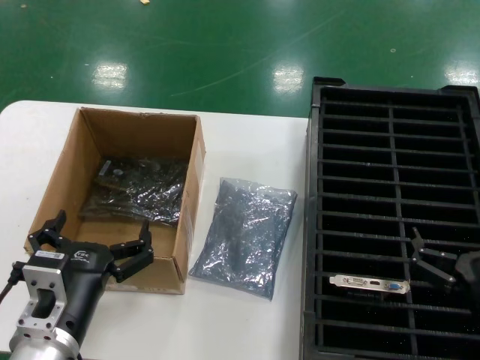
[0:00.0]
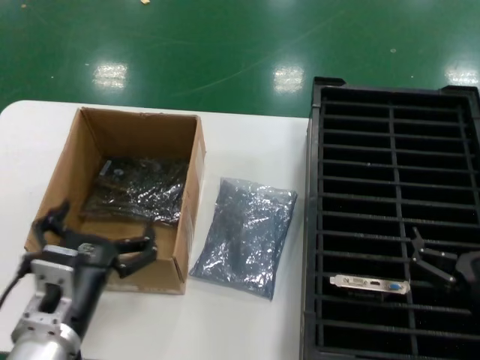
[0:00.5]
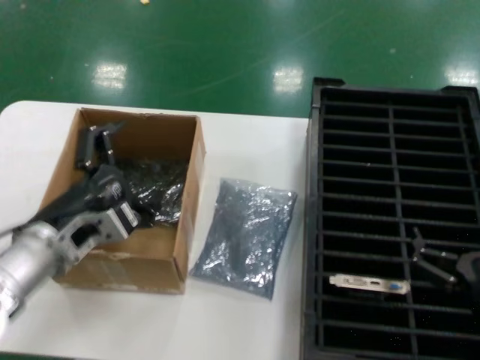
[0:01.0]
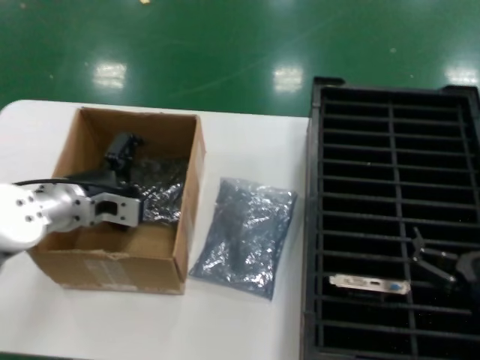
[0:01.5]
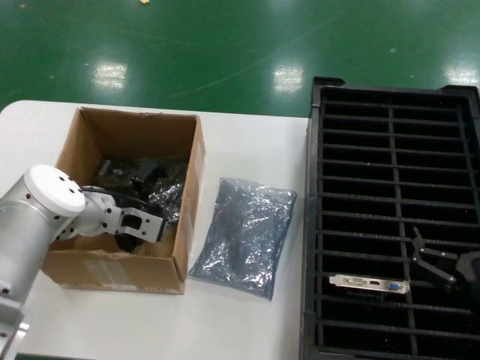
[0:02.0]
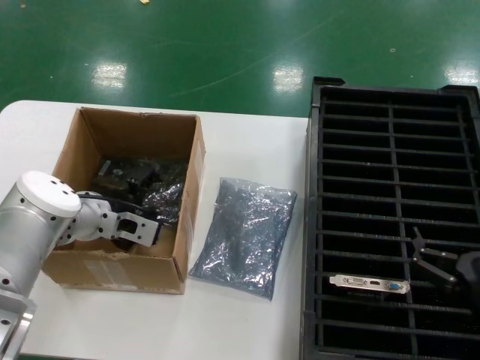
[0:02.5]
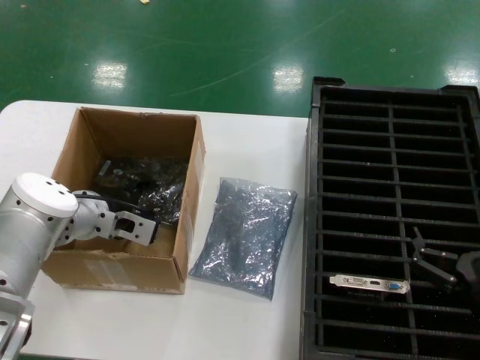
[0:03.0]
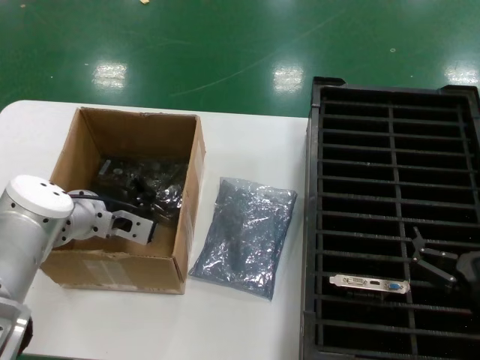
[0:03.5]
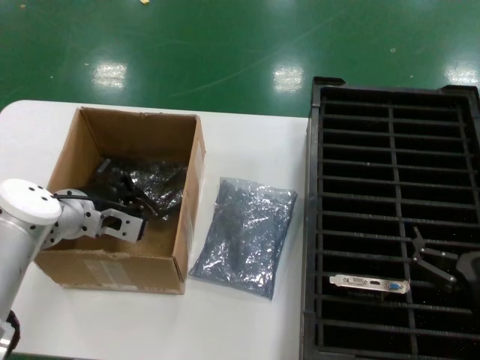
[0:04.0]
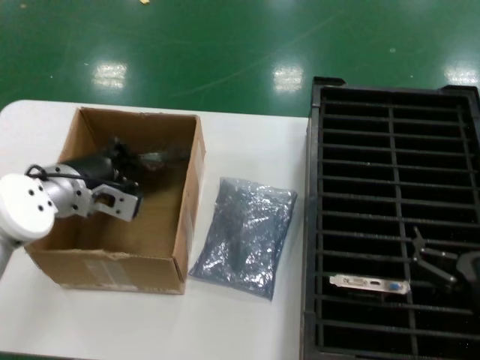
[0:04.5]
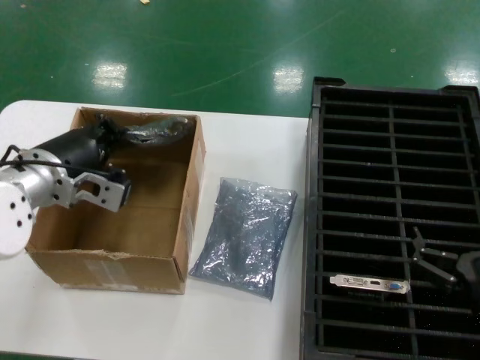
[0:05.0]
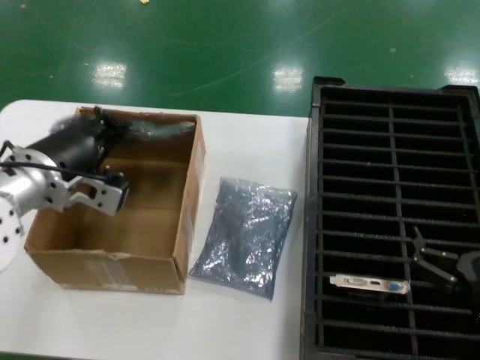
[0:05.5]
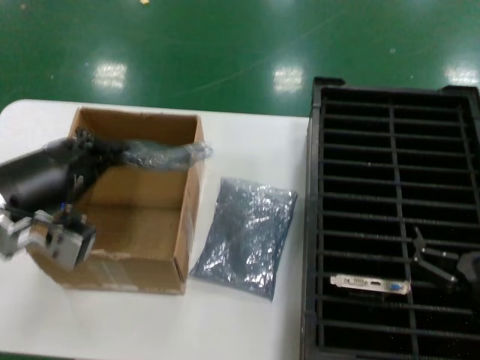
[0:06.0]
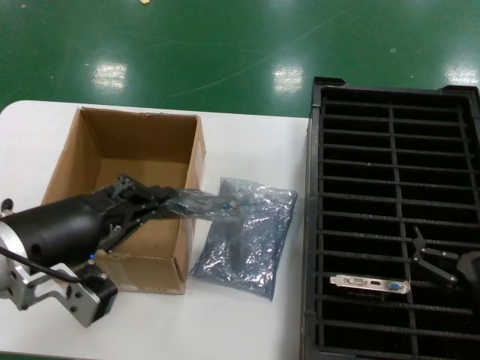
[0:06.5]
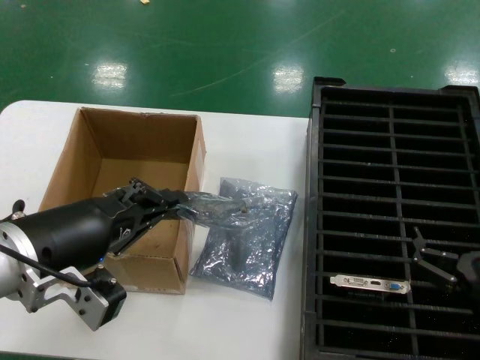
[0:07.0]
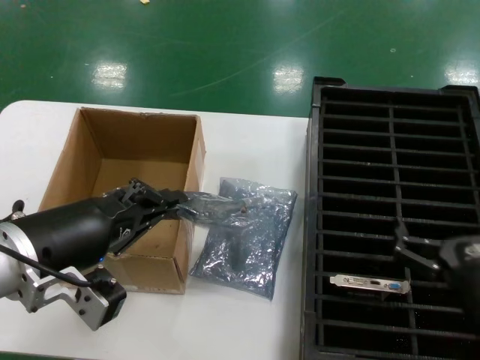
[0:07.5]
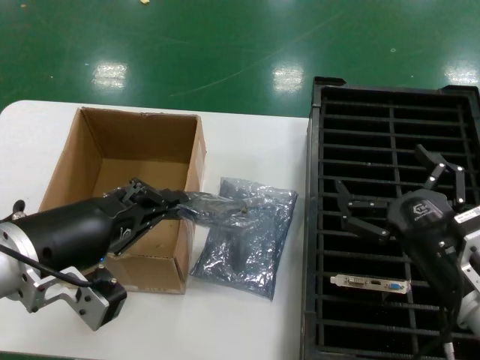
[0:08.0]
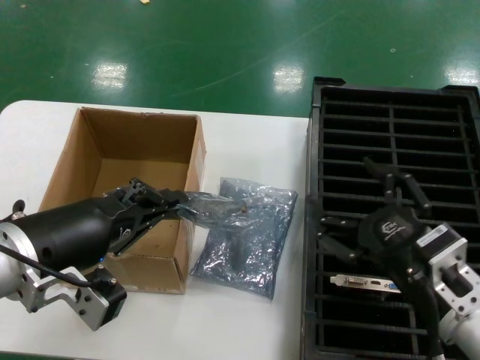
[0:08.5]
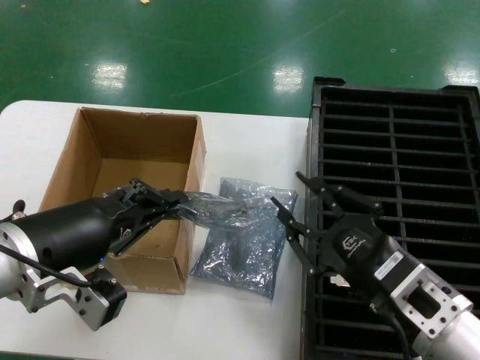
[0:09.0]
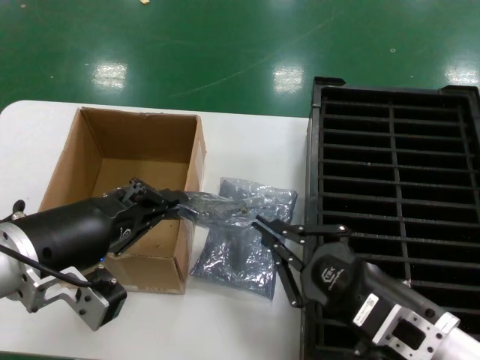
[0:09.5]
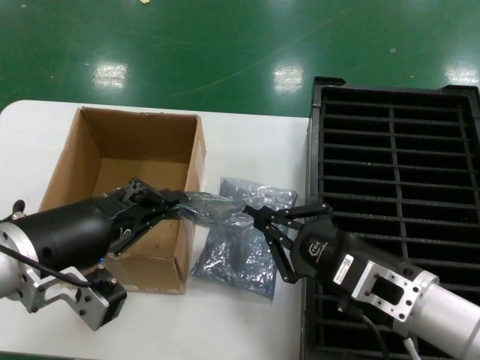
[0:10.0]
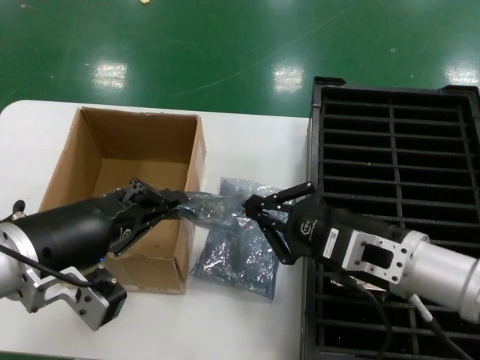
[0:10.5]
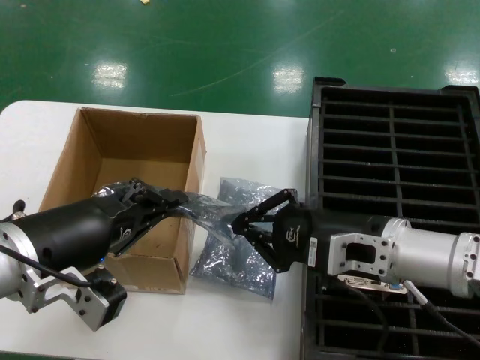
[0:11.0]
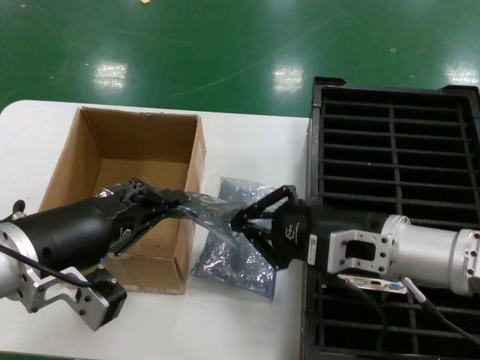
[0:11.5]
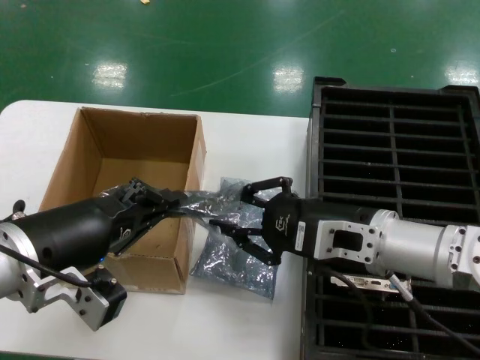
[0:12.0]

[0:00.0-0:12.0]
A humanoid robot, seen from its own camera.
Task of the whole recording: take out graphics card from box remove packaging put into black container.
Step, 0:00.0 to 0:03.5: Grasp the bag.
Step, 0:04.0 to 0:06.5: Lift the bag.
0:00.0 to 0:02.0: The left hand travels forward by about 25 cm.
0:02.0 to 0:04.0: There are only small adjustments of the hands.
0:04.0 to 0:06.0: The left hand travels backward and upward by roughly 20 cm.
0:06.0 to 0:08.0: The right hand moves upward, roughly 5 cm.
0:10.0 to 0:12.0: The right hand goes about 10 cm forward and upward.

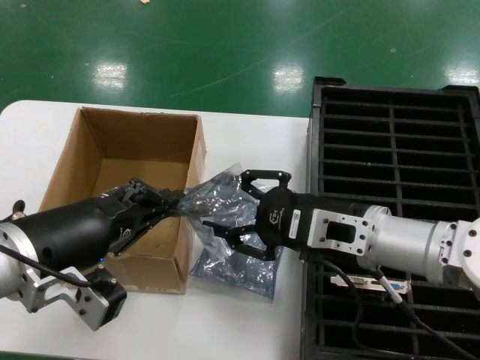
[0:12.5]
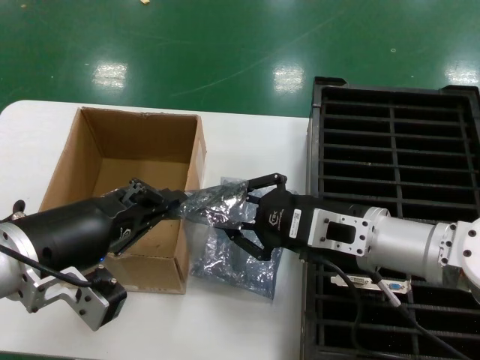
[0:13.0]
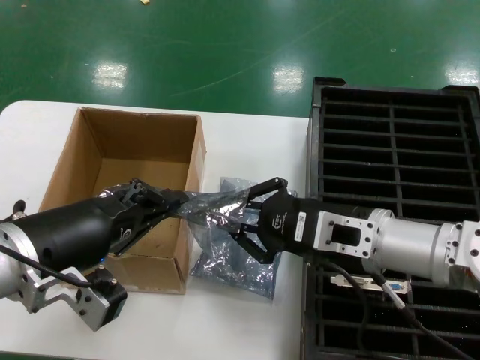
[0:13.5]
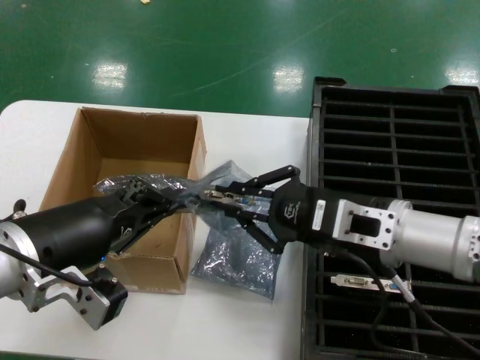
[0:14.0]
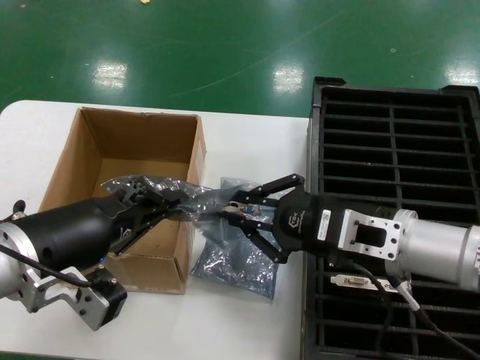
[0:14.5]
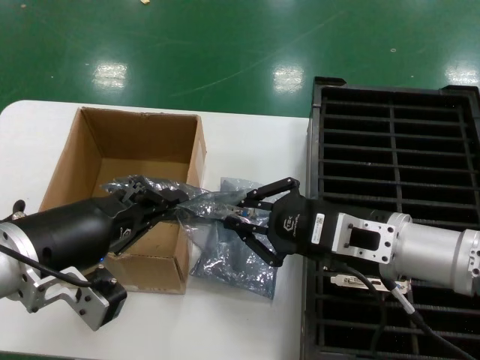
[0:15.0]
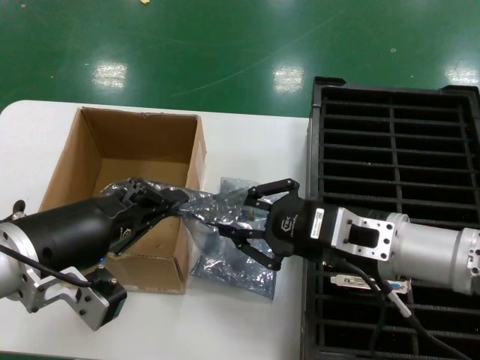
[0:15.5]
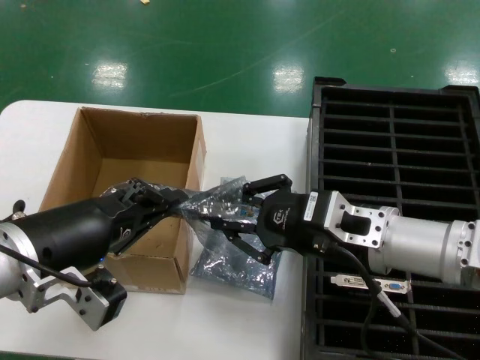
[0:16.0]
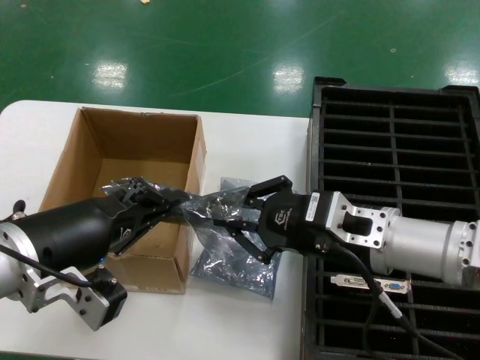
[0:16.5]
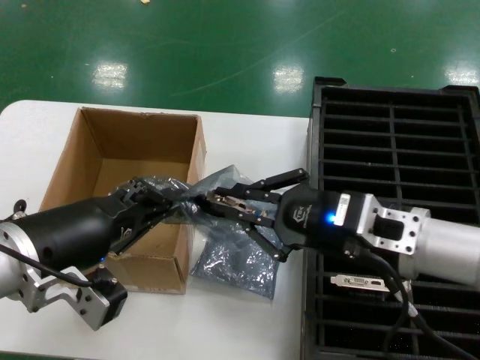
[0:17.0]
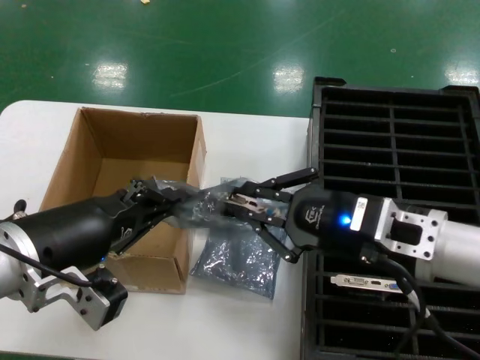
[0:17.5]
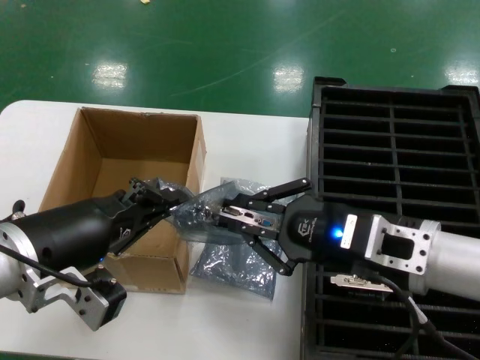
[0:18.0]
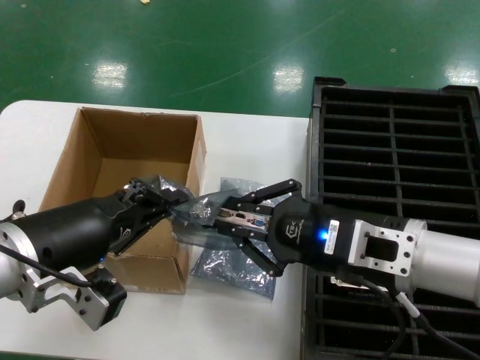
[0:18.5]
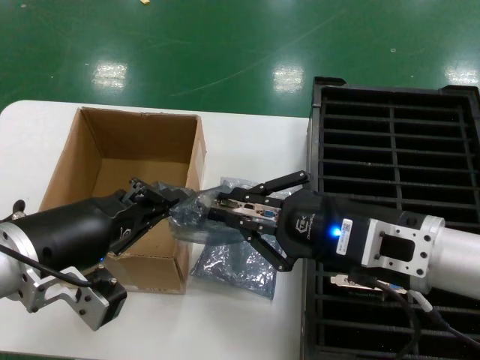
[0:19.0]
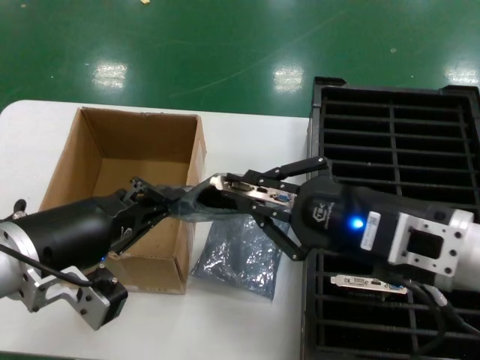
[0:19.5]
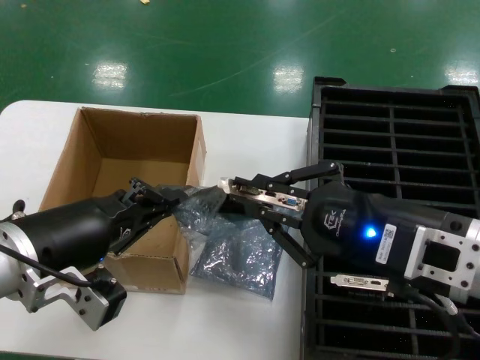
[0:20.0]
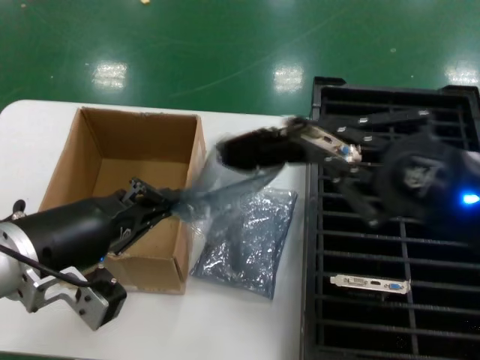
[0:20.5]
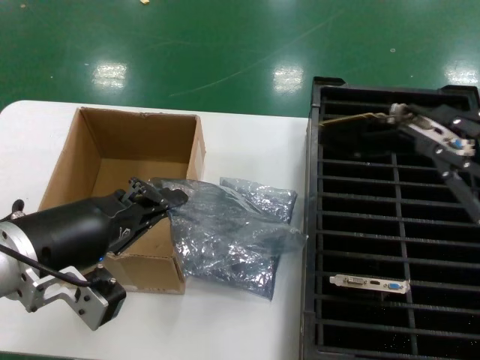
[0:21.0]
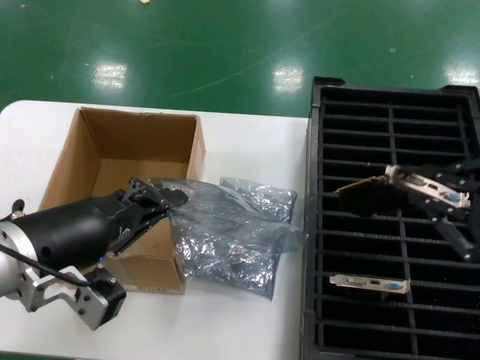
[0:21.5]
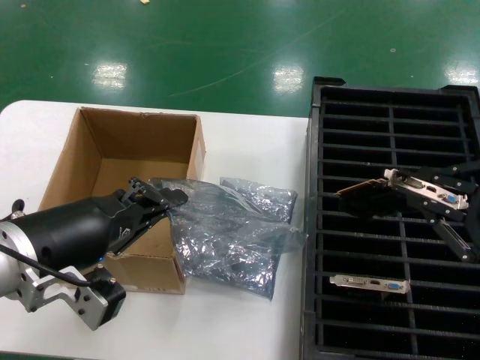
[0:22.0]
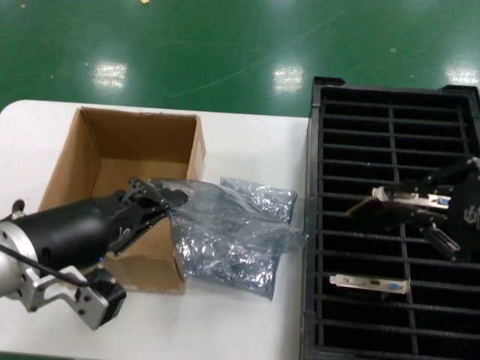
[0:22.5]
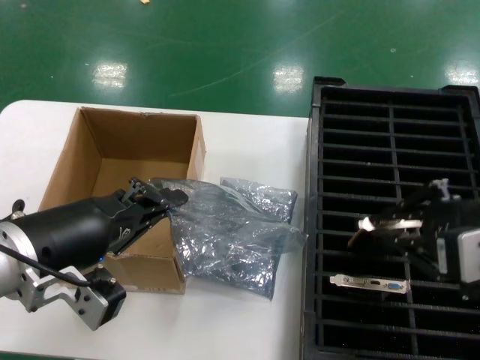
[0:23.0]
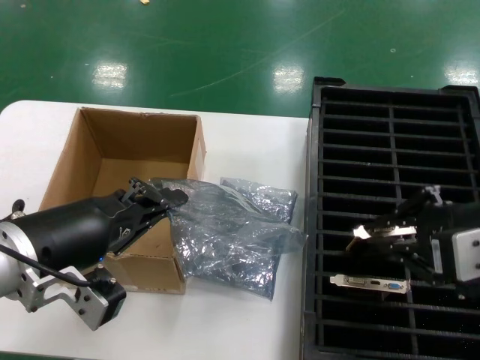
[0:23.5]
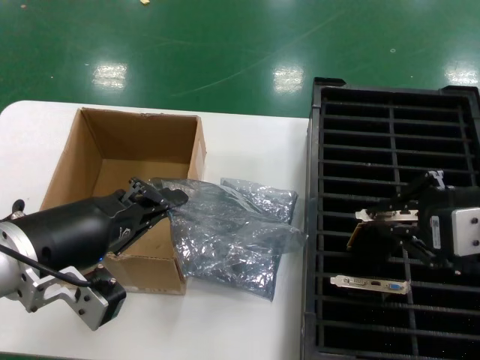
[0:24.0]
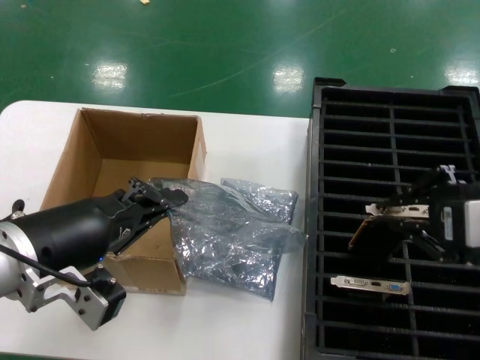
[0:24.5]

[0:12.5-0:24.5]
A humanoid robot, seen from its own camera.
Task of the whole recording: take out graphics card from box remove packaging put into black container.
Step, 0:12.5 to 0:20.5: Take out the hard disk of the bag.
0:12.5 to 0:16.5: The hands make only small movements.
0:16.5 to 0:18.5: The hands make only small movements.
0:18.5 to 0:20.5: The right hand travels backward, to the right and upward by roughly 15 cm.
0:22.5 to 0:24.5: The right hand changes place by about 5 cm.

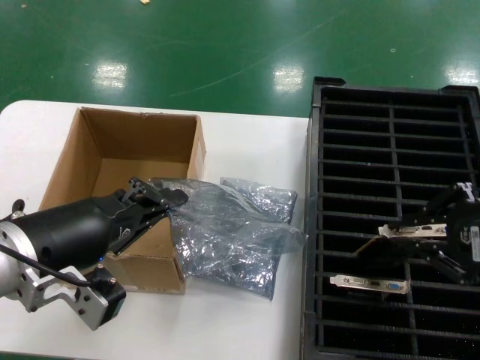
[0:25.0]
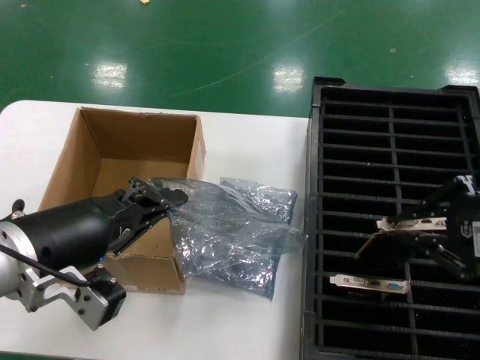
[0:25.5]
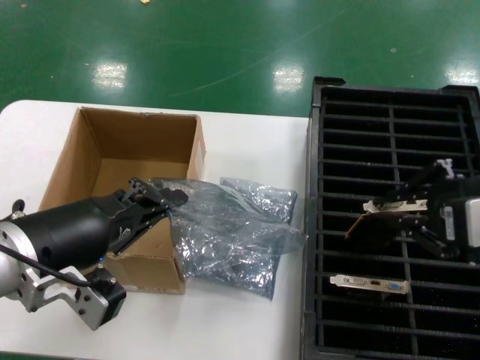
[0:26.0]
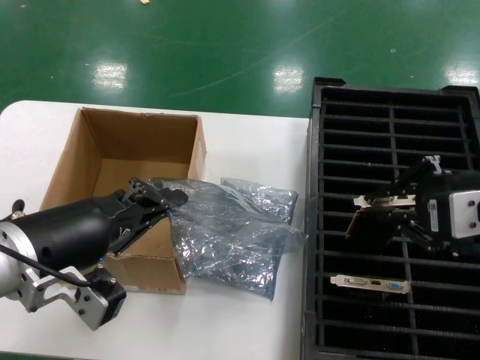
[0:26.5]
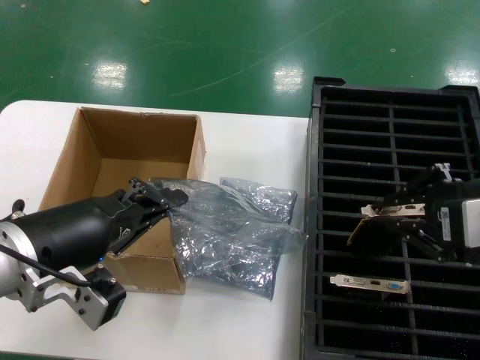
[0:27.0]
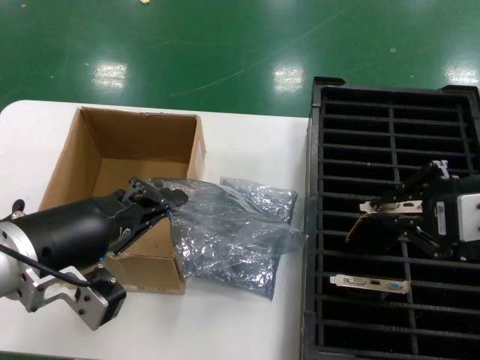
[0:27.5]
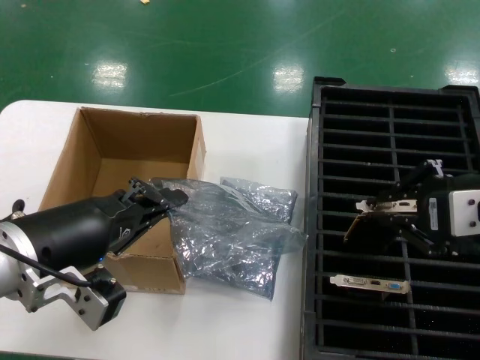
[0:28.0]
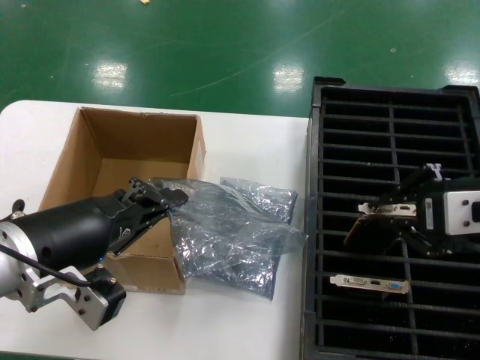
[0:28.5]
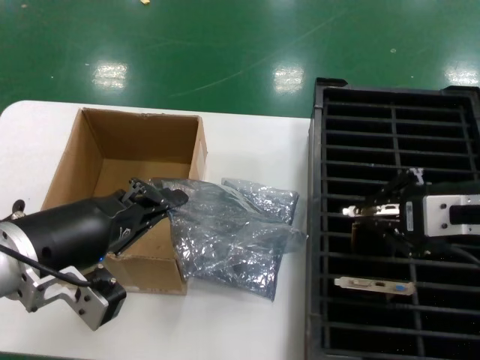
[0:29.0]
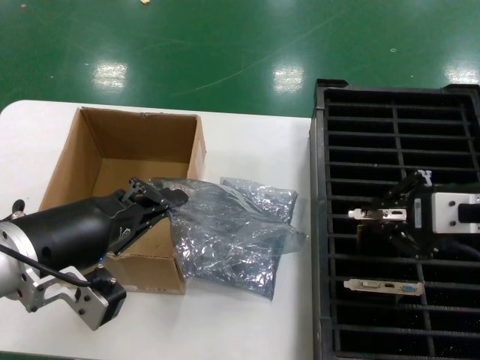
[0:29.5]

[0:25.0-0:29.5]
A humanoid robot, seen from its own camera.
Task of the whole recording: take out graphics card from box remove packaging put into black container.
0:25.0 to 0:27.0: The hands stay close to where they were, moving slightly.
0:27.0 to 0:29.5: The right hand changes place by some 5 cm.
